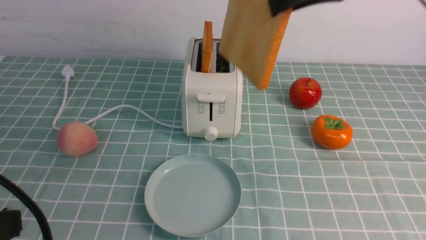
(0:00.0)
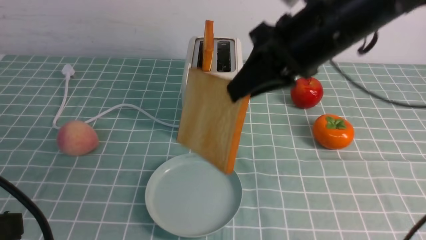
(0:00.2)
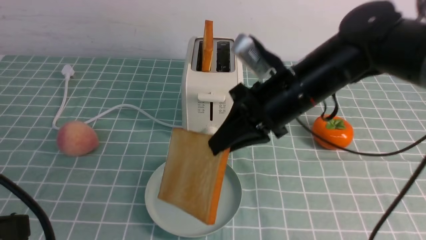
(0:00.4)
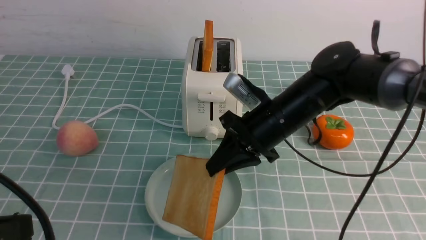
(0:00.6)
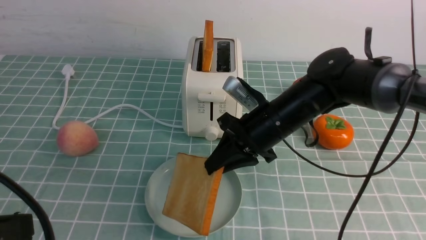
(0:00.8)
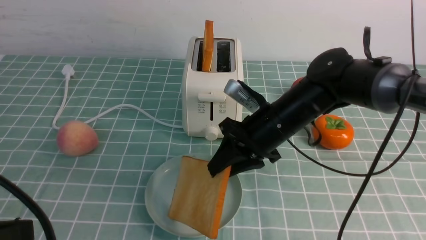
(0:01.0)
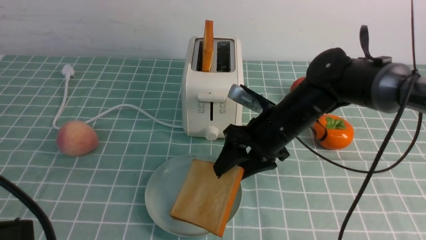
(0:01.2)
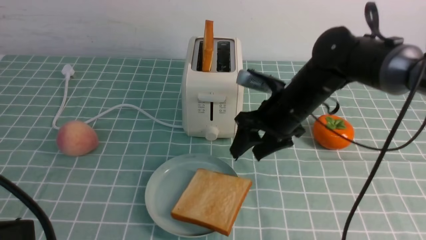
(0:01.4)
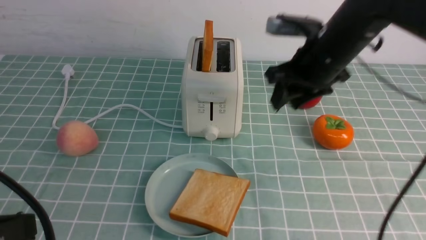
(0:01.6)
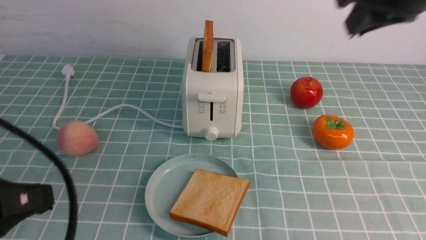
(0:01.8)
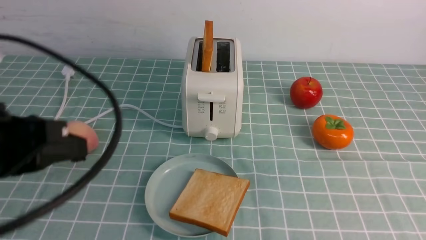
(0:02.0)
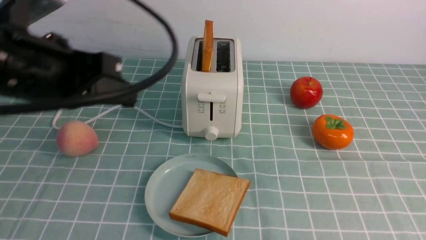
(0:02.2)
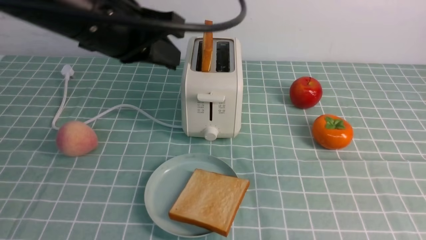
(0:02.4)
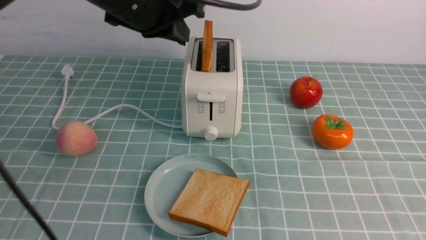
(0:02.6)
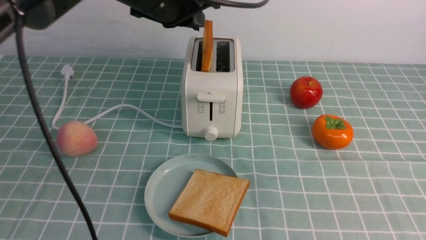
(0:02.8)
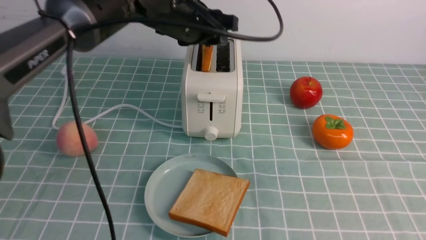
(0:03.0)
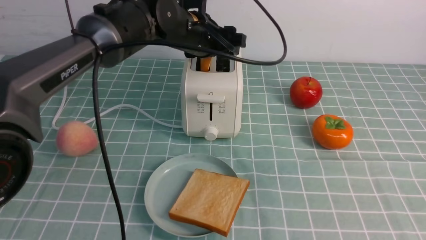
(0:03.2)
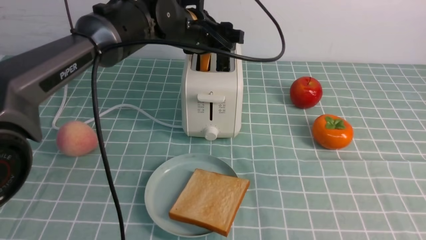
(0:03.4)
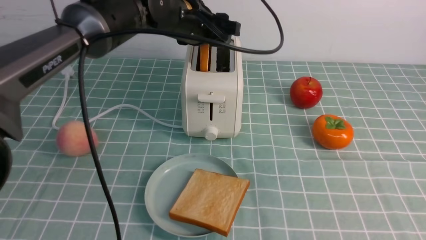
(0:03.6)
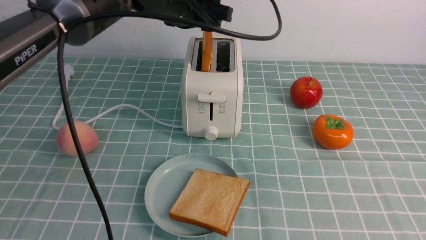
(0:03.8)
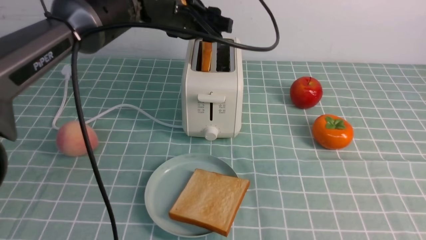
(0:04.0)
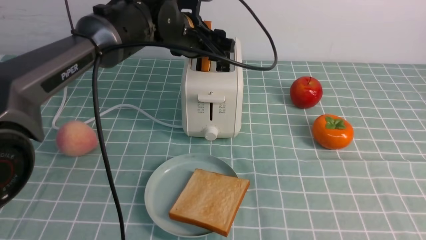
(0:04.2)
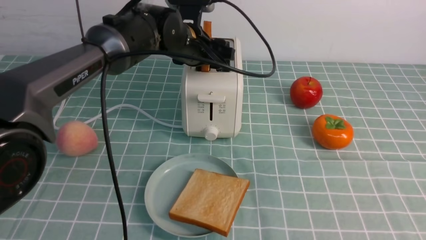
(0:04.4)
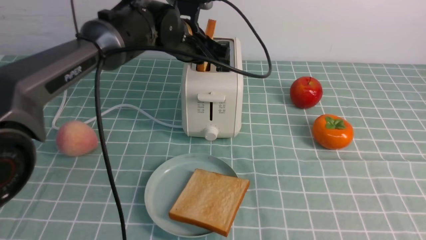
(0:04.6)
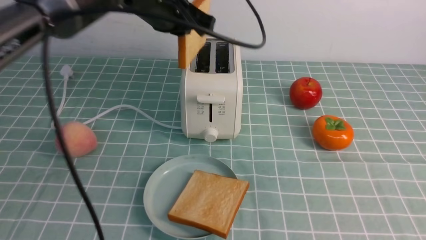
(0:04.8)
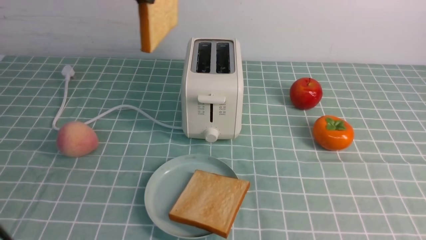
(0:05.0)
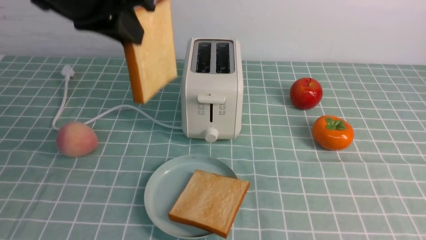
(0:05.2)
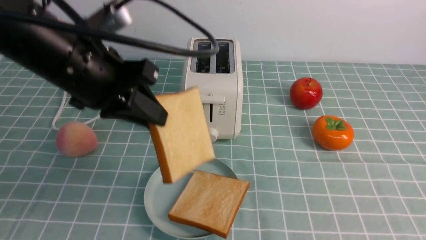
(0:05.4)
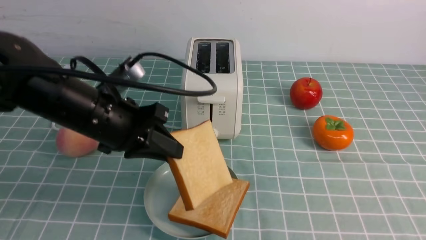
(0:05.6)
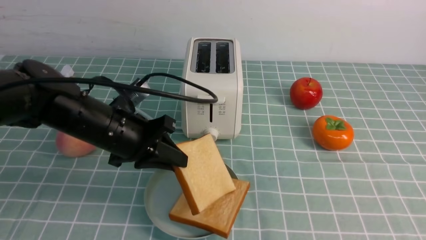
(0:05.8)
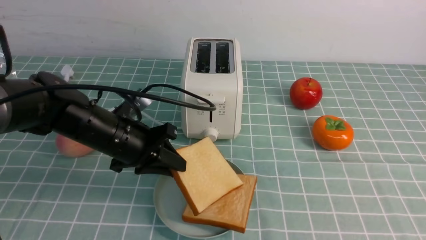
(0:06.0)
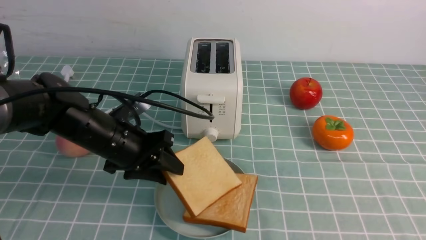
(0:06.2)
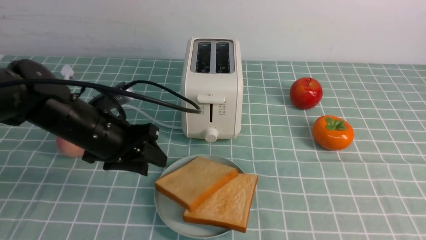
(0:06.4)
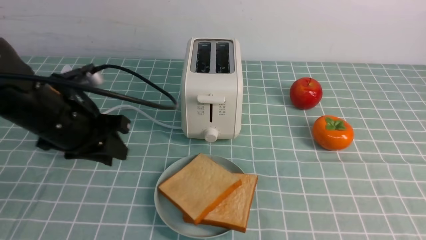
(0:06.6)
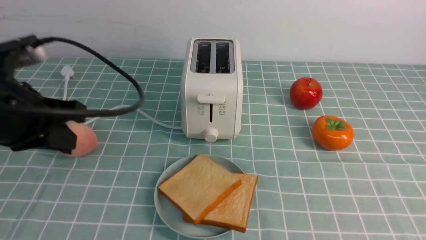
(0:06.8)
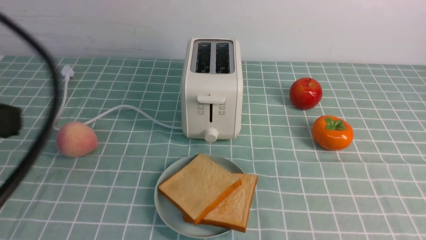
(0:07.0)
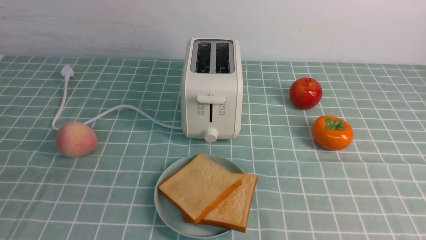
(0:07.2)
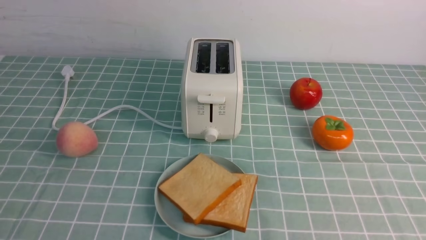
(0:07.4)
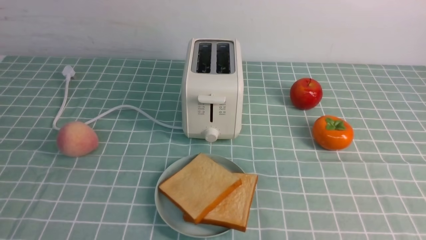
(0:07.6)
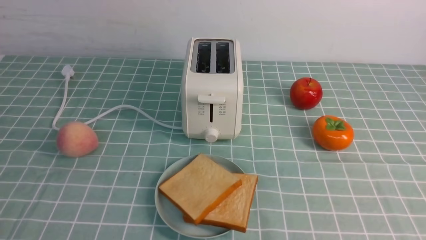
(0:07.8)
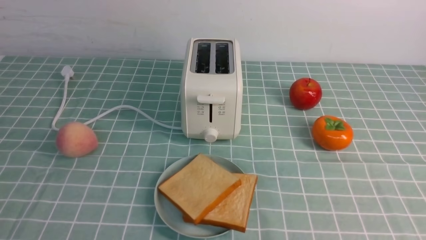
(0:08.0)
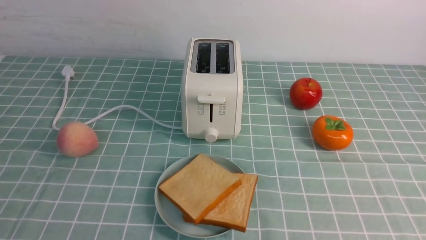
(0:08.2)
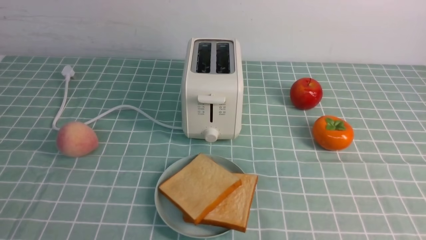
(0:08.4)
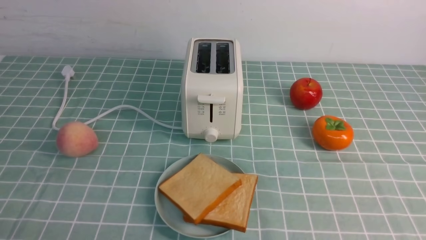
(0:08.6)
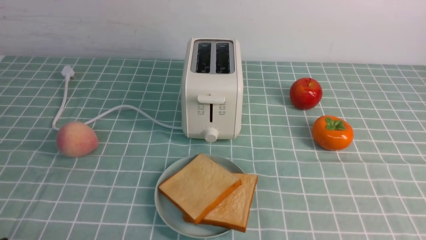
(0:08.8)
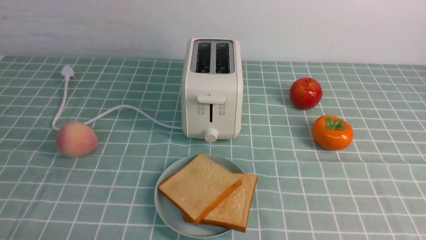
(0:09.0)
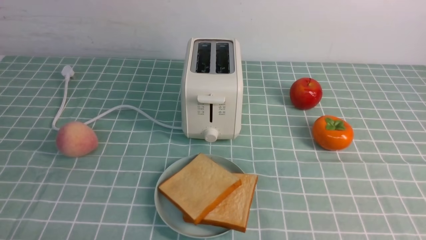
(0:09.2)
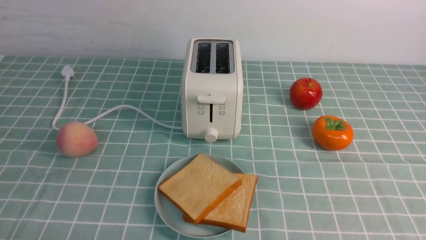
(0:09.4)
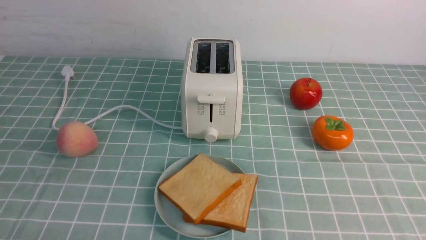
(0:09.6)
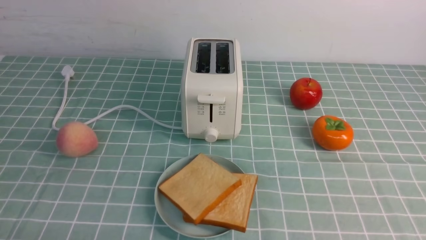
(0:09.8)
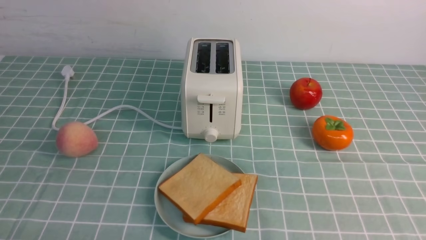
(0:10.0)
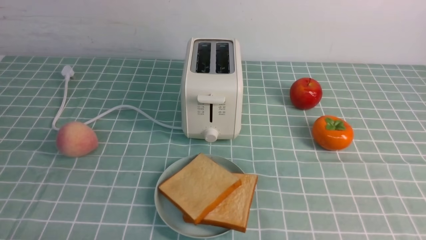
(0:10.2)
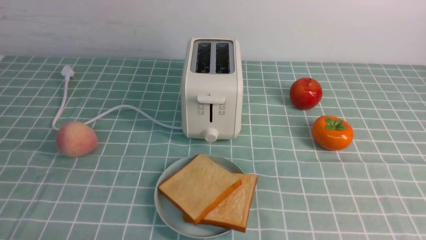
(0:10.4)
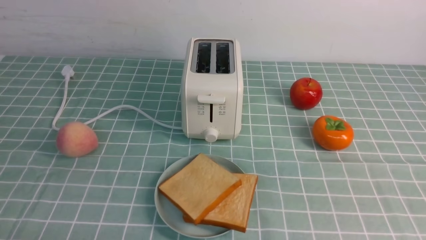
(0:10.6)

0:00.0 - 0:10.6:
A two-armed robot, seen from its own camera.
Task of the whole recording: take toasted bread from bread machine on blue coffee table place on plate.
Step, 0:00.0 - 0:01.4: use the right arm to put a slice of bread into the plate.
Step, 0:01.6 - 0:04.8: use the left arm to take out a slice of bread.
Step, 0:05.0 - 0:06.6: use the left arm to put a slice of bread into the empty plate.
0:00.0 - 0:01.6: The right gripper travels downward and back again, some 20 cm each way, and opens.
0:01.6 - 0:03.0: The left gripper moves forward and to the right, roughly 40 cm, and opens up. The right gripper travels backward and to the right by approximately 35 cm, and closes its fingers.
0:03.0 - 0:04.6: The grippers make only small movements.
0:04.6 - 0:06.0: The left gripper travels downward, backward and to the left by about 20 cm.
0:06.0 - 0:07.6: The left gripper travels backward by some 40 cm, and closes its fingers.

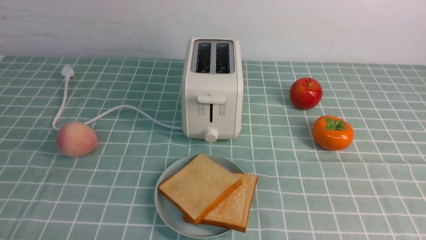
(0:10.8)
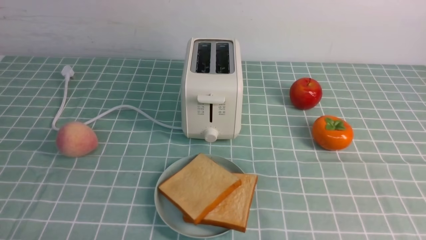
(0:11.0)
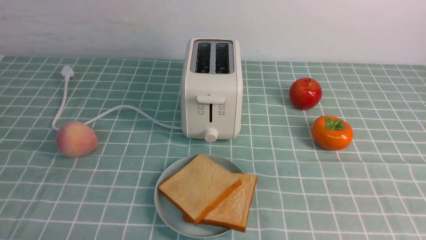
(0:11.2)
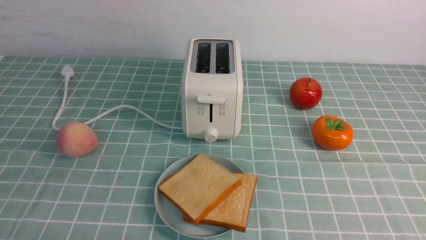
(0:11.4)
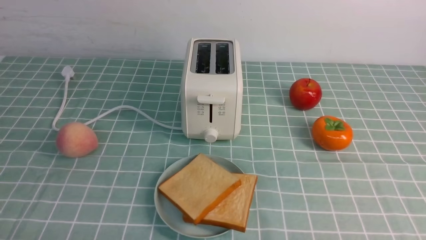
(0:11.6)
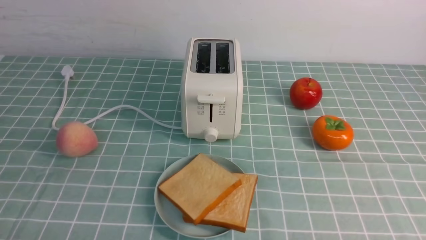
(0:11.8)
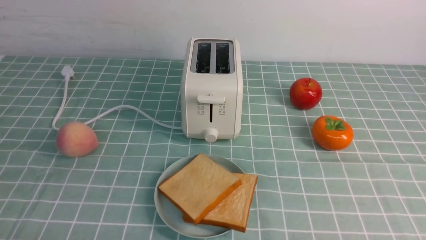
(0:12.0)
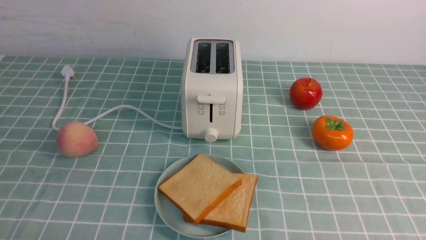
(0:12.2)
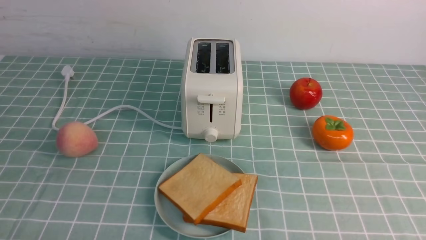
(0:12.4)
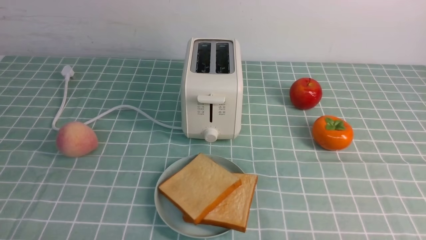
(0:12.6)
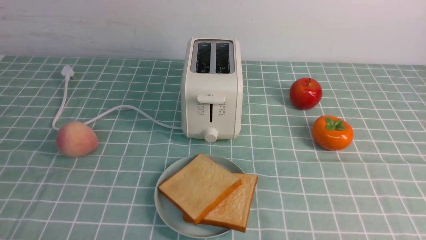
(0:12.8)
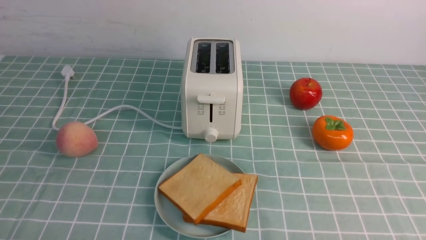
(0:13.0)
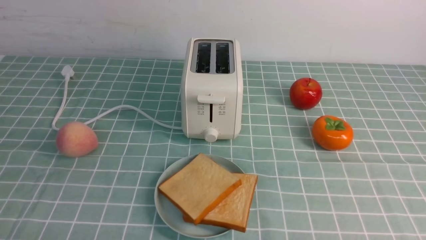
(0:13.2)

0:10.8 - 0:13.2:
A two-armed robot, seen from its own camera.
Task of the whole recording: take toasted bread from bread machine on blue coffee table place on plate.
0:12.0 - 0:13.2: The two grippers keep their place.

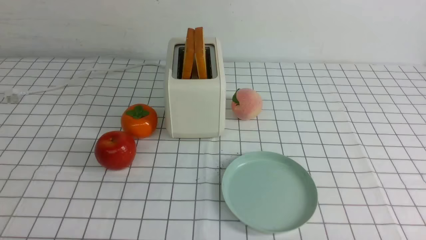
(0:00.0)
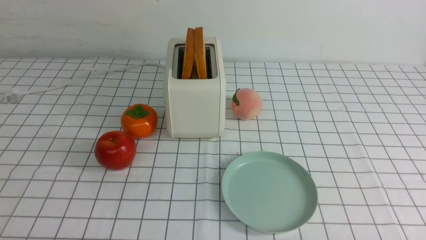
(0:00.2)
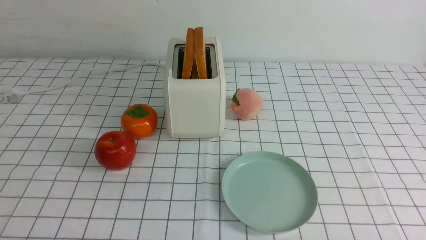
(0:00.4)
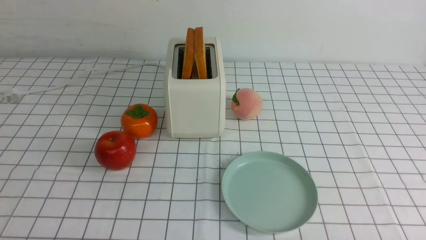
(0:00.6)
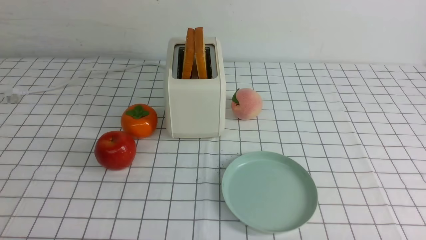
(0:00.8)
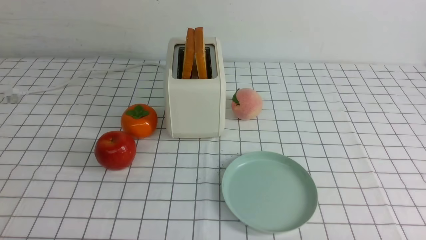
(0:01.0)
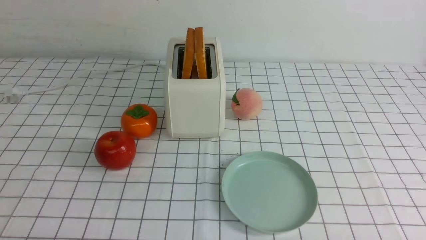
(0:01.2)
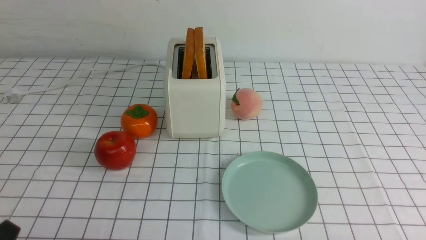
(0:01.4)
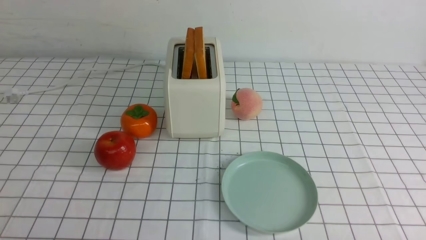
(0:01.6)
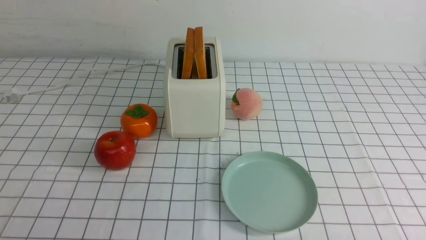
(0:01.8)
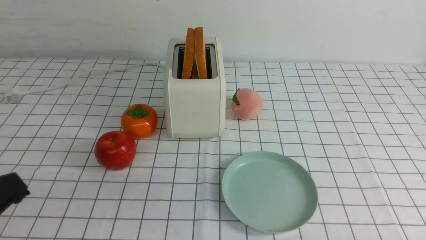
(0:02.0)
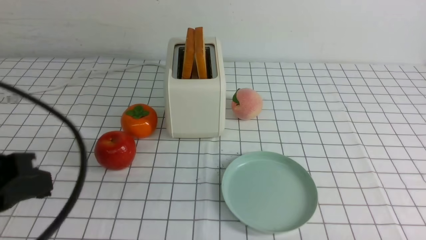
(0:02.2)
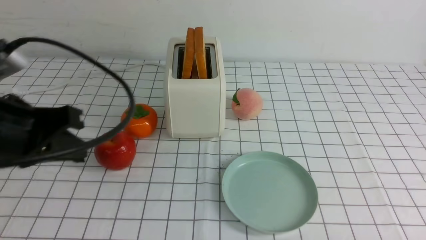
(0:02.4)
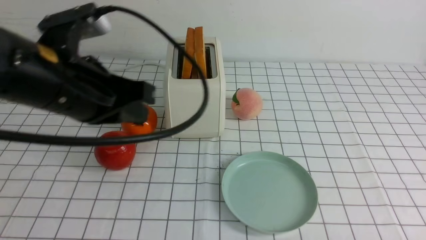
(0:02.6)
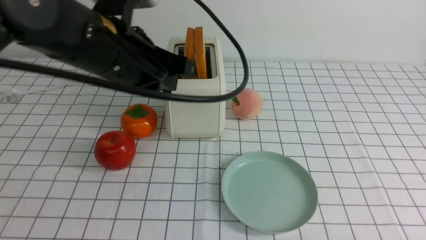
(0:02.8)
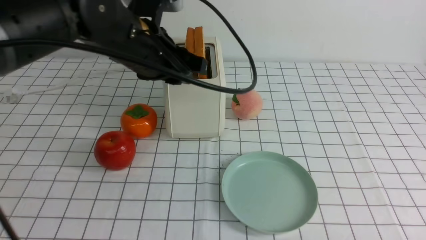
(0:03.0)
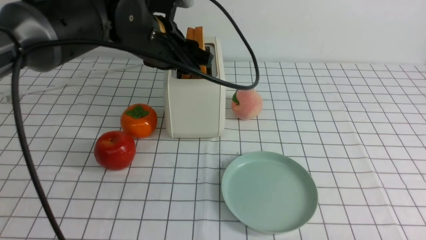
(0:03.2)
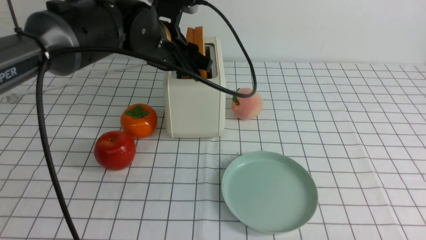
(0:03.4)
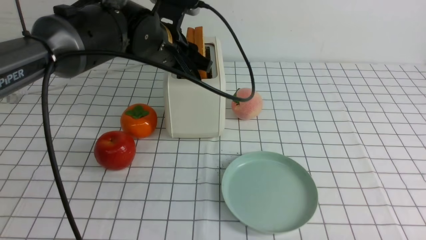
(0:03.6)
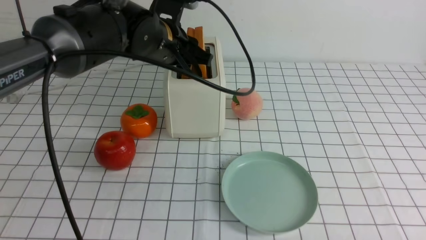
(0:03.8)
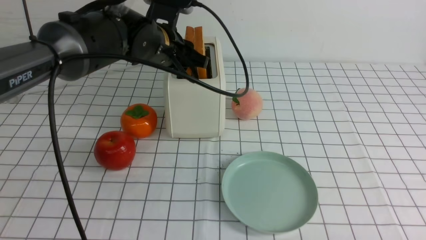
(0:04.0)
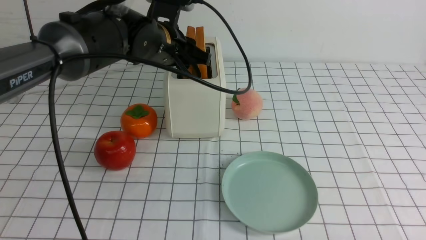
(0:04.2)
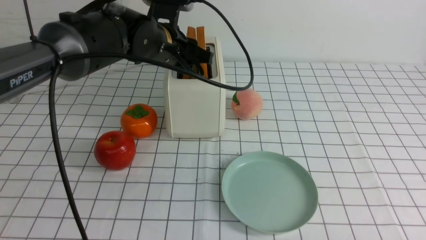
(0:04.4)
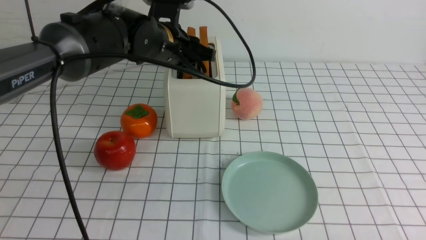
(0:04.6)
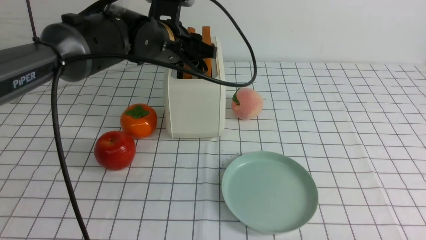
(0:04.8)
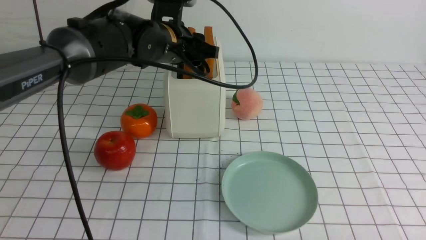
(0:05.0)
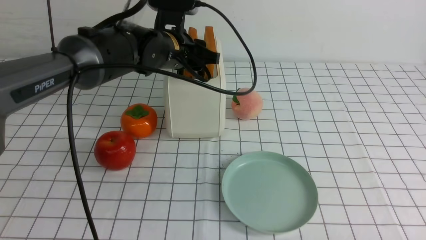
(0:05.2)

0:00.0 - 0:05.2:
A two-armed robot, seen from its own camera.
Task of the whole recording: take toasted bread from bread machine on white checkered table place on plate.
0:01.8 - 0:03.4: The left gripper travels forward and to the right by about 40 cm, and opens its fingers.
0:03.4 - 0:05.2: The left gripper moves about 5 cm.
